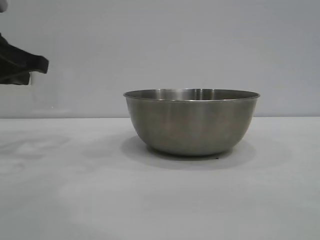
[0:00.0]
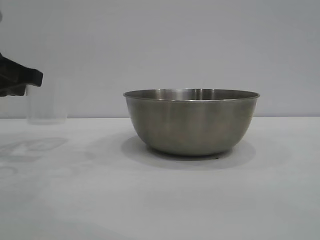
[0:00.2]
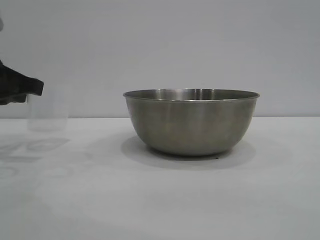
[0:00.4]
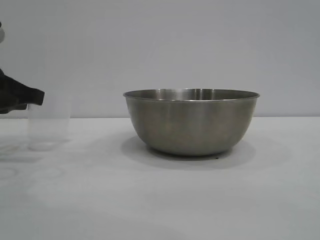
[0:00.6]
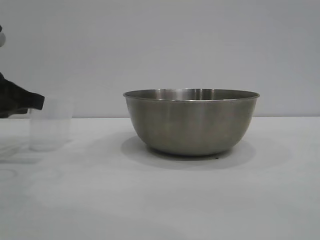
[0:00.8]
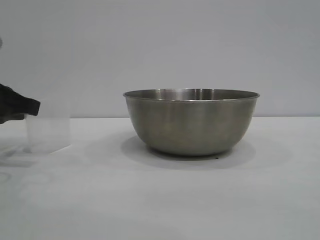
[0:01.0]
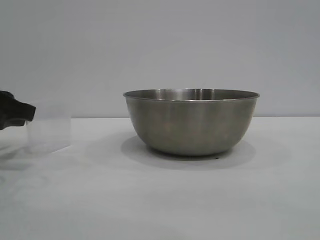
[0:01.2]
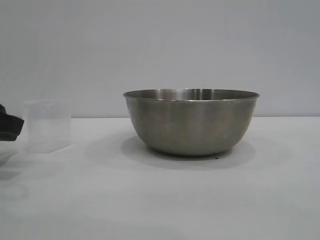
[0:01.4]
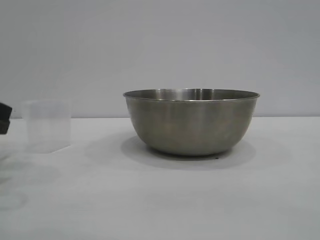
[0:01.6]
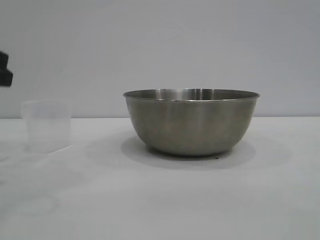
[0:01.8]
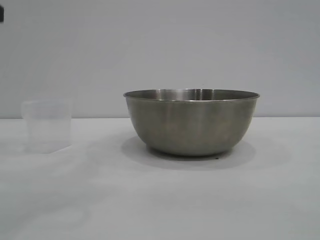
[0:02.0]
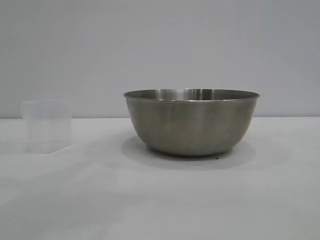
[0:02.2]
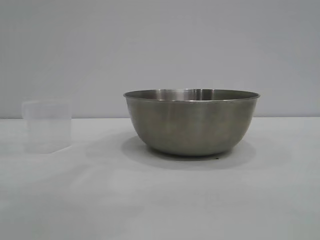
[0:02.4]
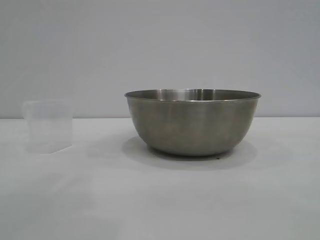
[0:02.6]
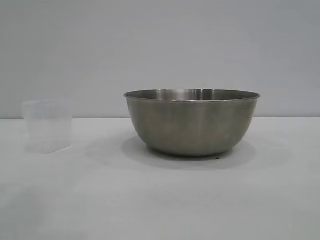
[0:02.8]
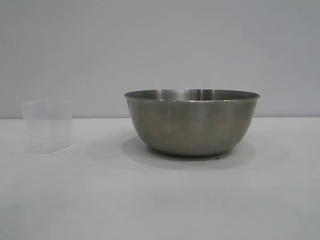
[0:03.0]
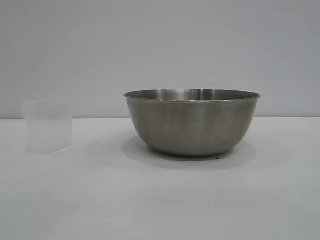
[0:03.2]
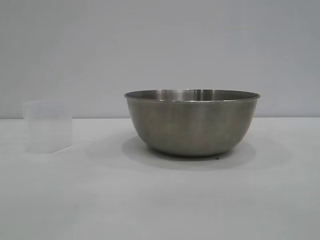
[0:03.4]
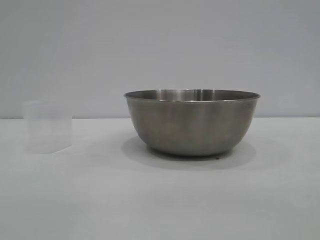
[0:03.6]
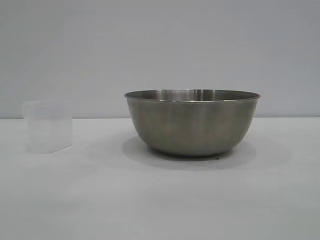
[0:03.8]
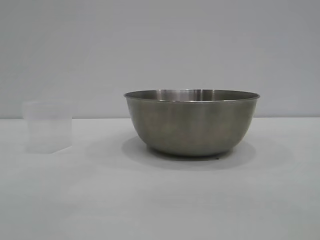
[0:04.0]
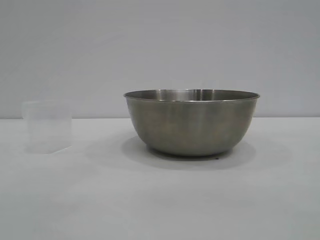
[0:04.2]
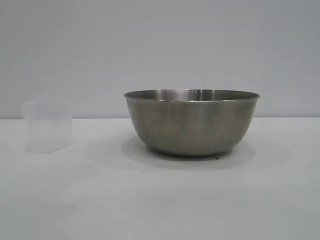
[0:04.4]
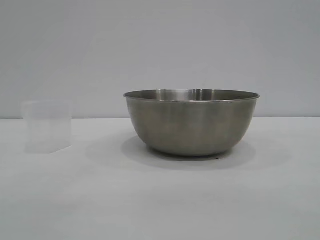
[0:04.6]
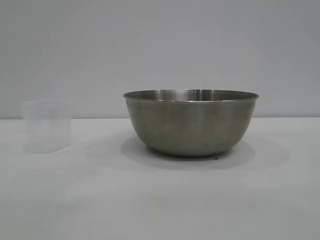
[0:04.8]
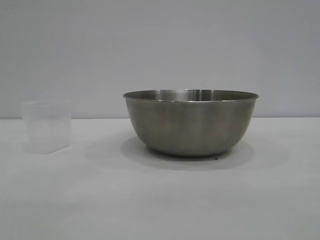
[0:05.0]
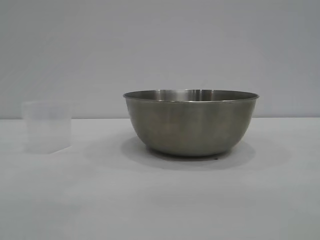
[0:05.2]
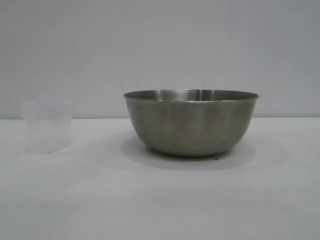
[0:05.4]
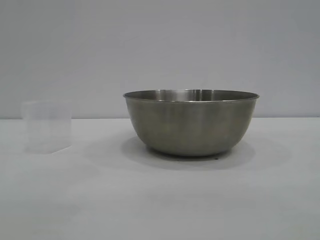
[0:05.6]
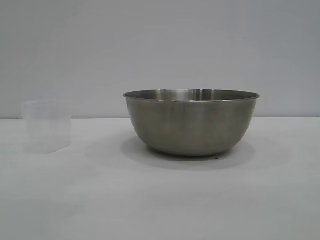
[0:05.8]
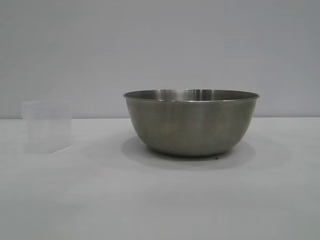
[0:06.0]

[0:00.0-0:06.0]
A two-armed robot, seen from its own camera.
Task of the whole recording: the right gripper grasp the rice container and place it in the center of the table, the left gripper grasp the rice scoop and pour the rice into the rice container.
Step, 0:00.0 to 0:01.6: Place the cup on the table with the left gripper.
